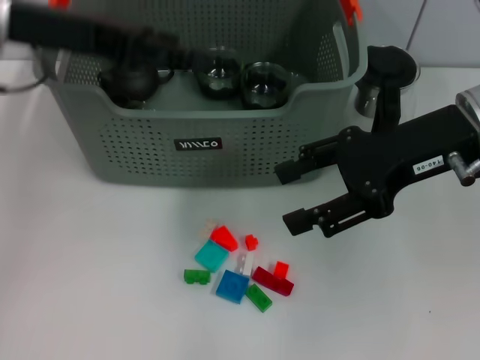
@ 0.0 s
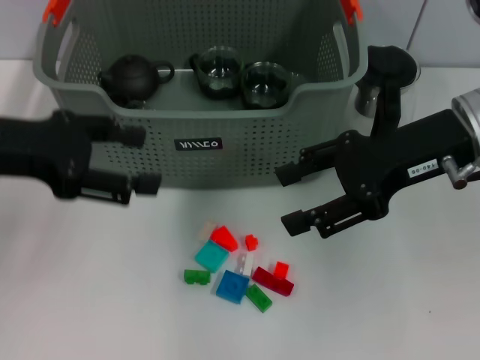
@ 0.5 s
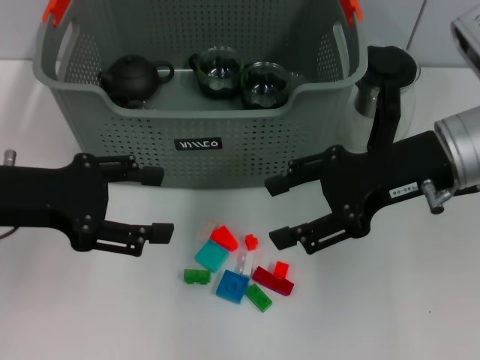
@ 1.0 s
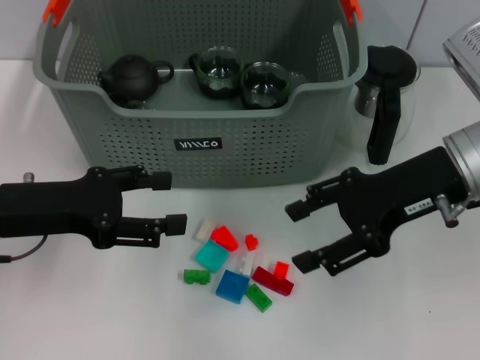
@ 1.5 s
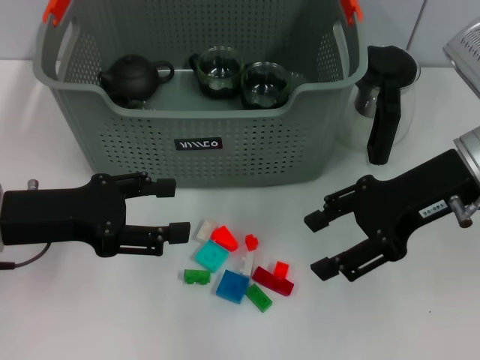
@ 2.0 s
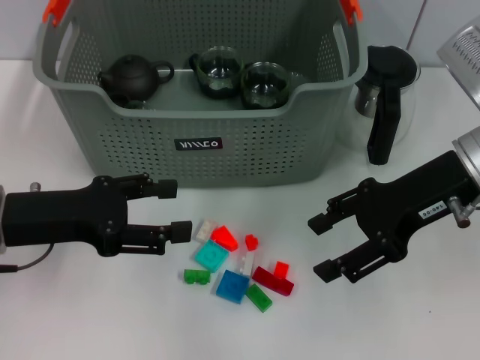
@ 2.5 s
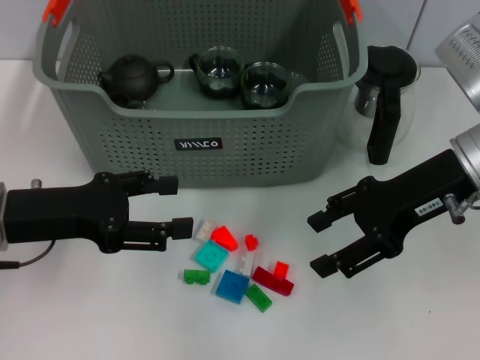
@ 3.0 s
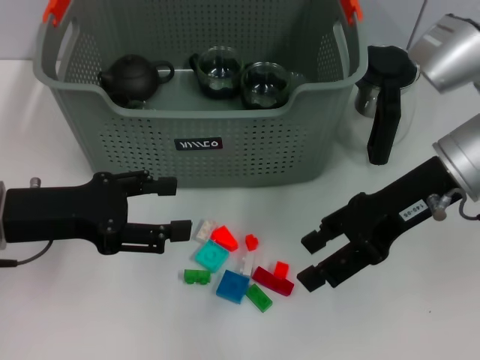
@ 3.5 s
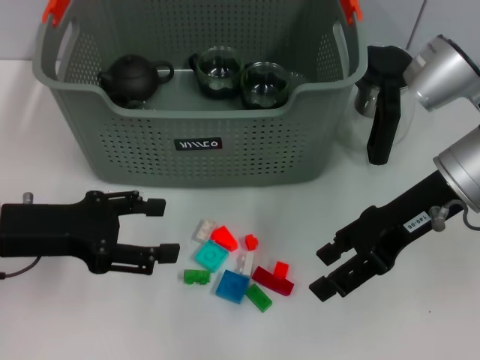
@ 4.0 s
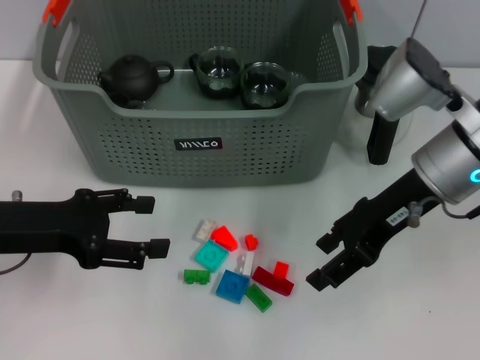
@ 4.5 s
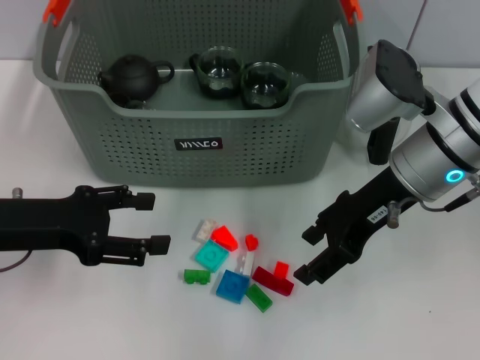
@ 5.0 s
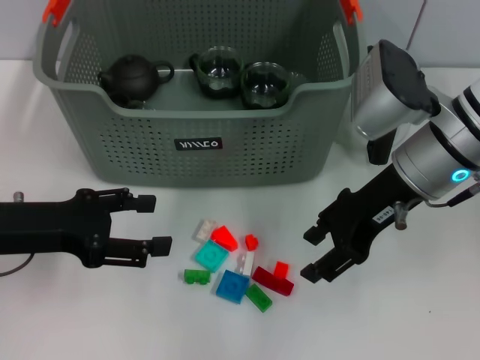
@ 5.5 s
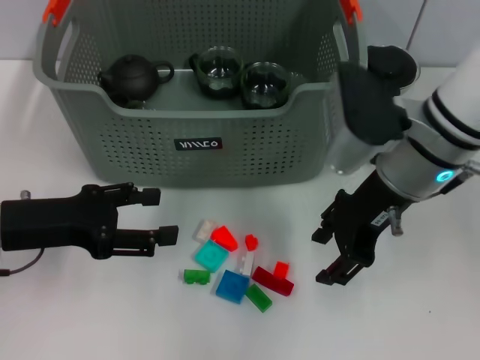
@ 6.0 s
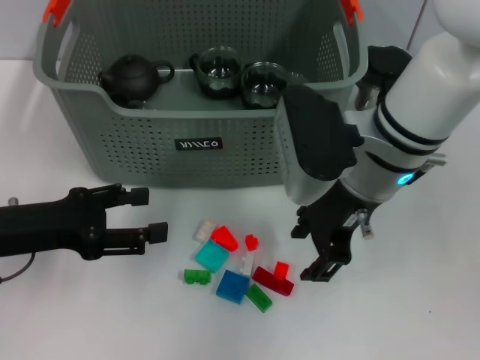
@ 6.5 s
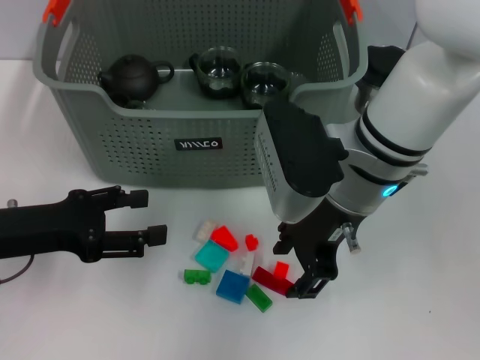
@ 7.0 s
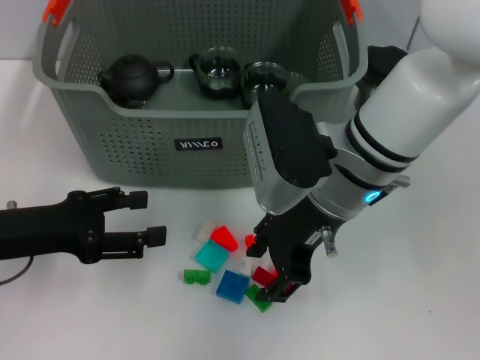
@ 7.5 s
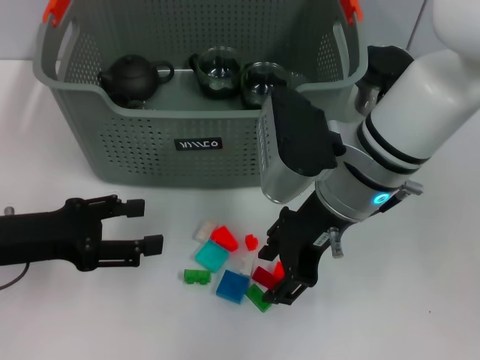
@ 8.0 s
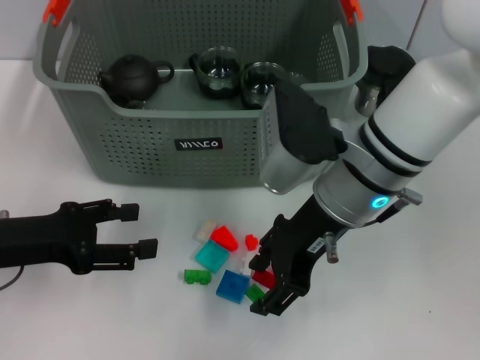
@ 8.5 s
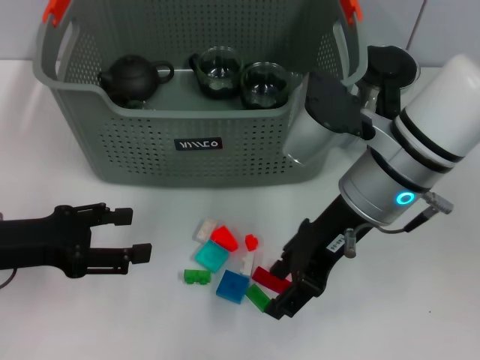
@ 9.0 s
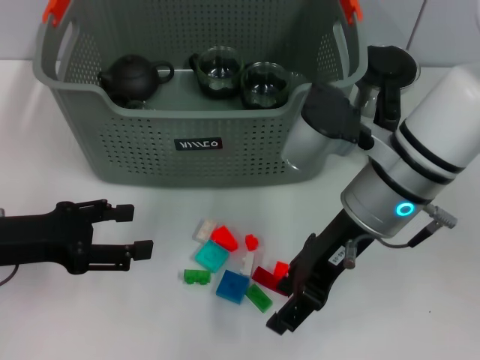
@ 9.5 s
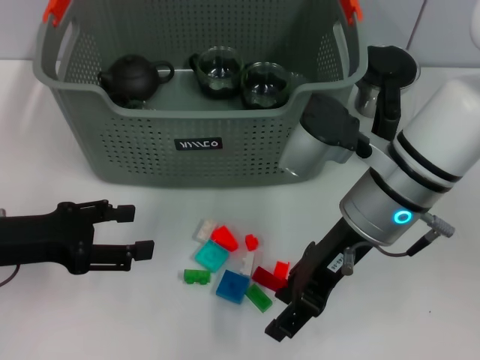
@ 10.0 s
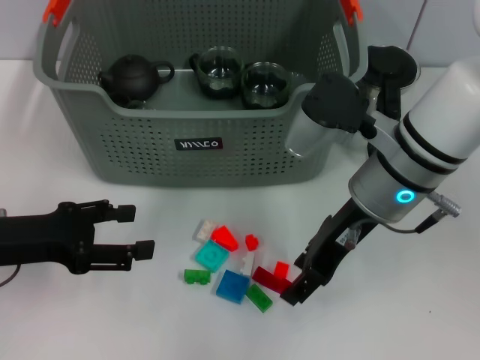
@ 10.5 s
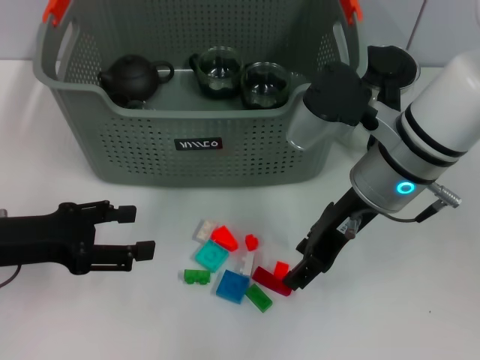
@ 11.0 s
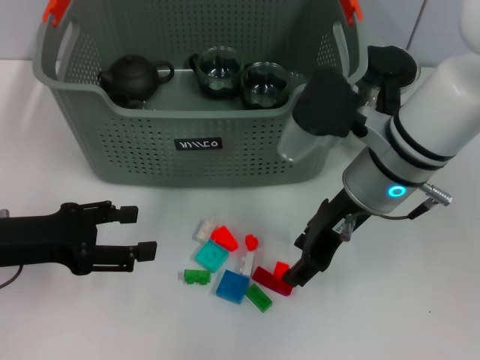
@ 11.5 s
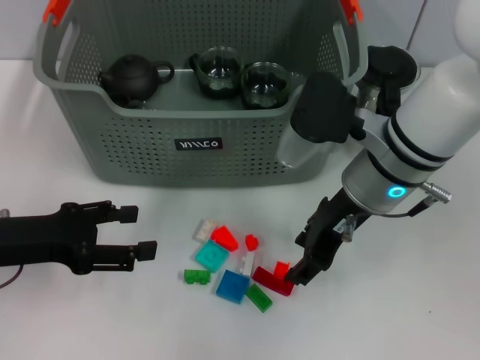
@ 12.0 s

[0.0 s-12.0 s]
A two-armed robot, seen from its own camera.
Task of the whole recording: pick up the teacup on the table and place it into the storage bin, pick up the block on the table and place it into the storage bin.
0.0 to 2.0 s: The left gripper heads downward and backward, covering approximately 15 cm.
4.0 to 6.0 s: The right gripper goes about 5 cm to the left.
6.0 to 8.0 s: The right gripper heads to the left, covering approximately 5 cm.
10.0 to 12.0 s: The grippers move only a little.

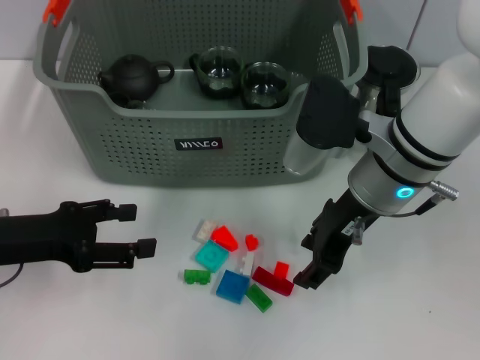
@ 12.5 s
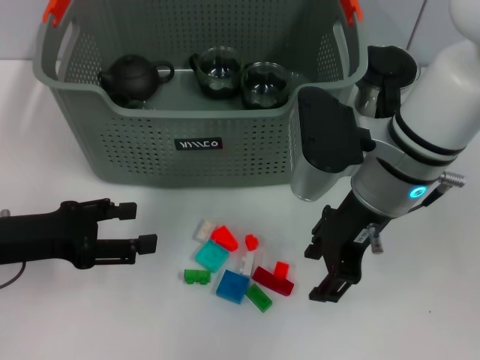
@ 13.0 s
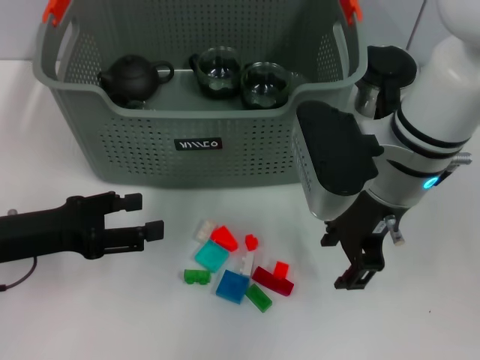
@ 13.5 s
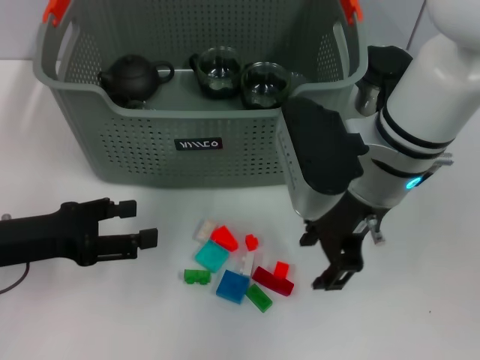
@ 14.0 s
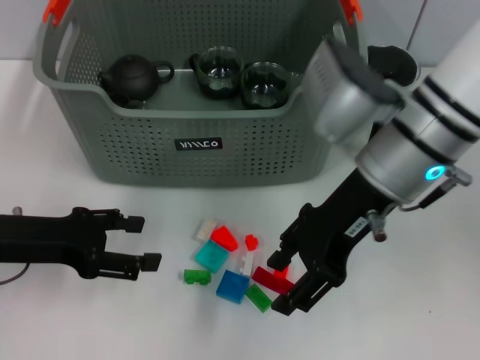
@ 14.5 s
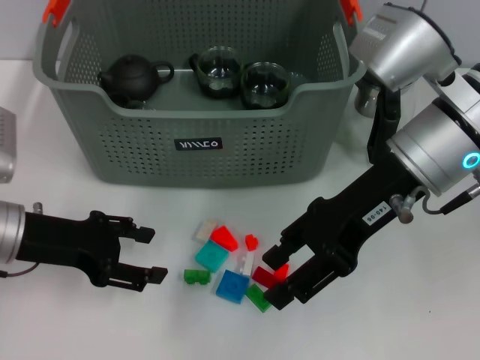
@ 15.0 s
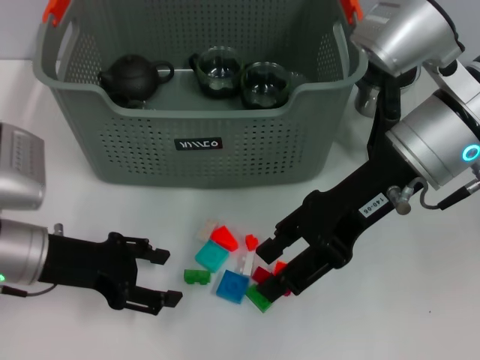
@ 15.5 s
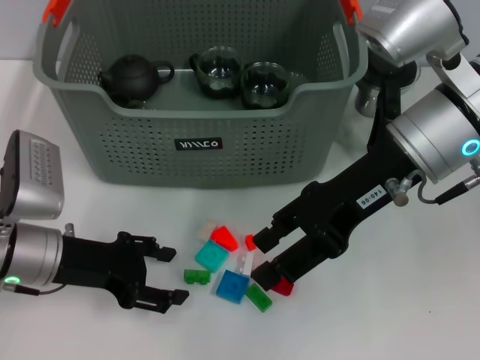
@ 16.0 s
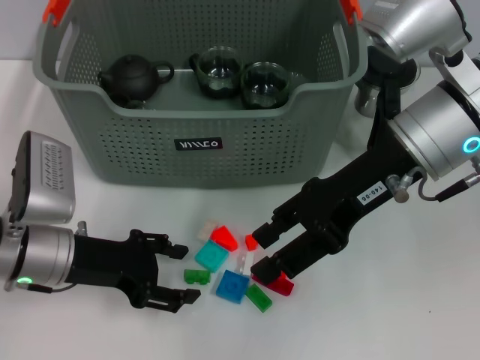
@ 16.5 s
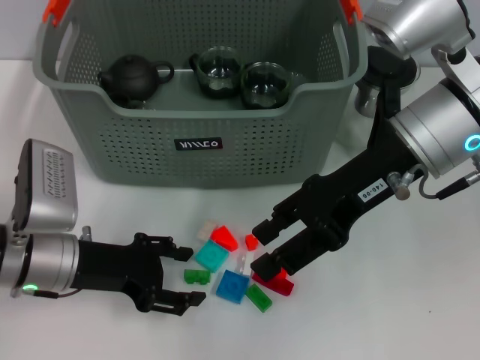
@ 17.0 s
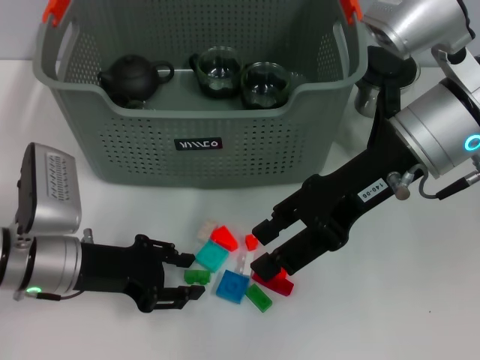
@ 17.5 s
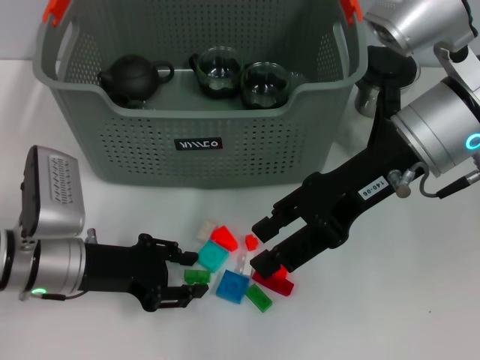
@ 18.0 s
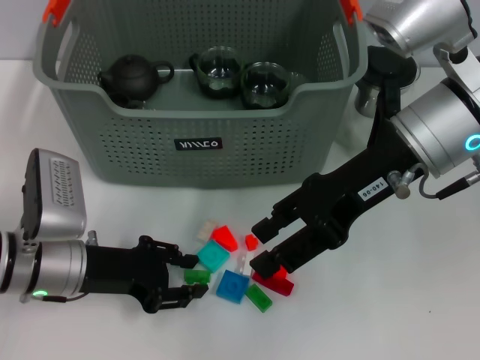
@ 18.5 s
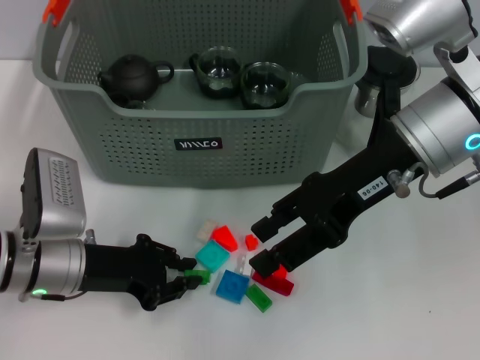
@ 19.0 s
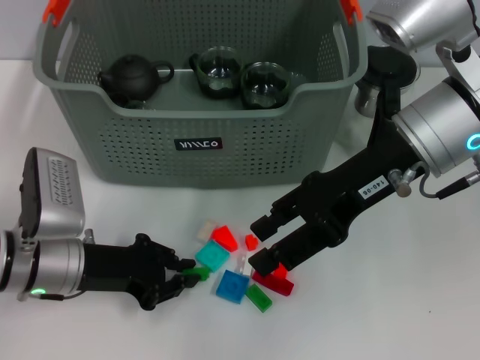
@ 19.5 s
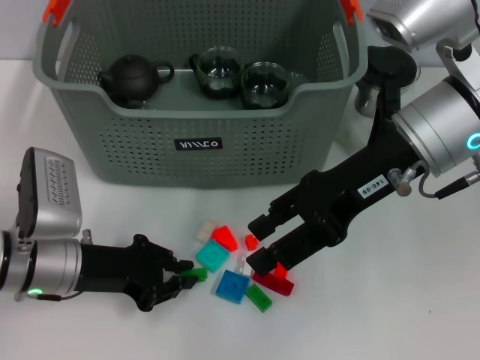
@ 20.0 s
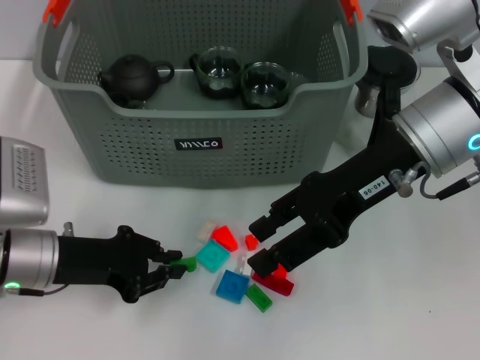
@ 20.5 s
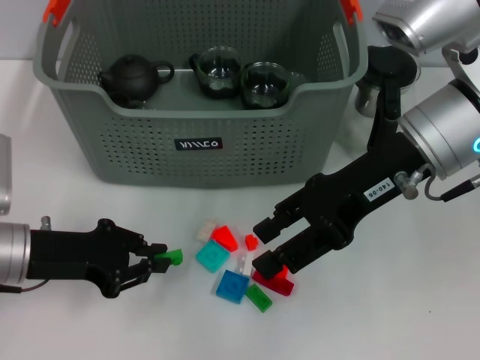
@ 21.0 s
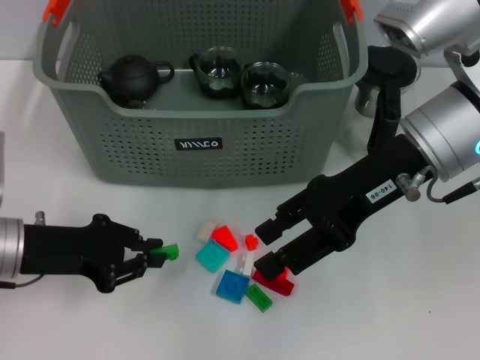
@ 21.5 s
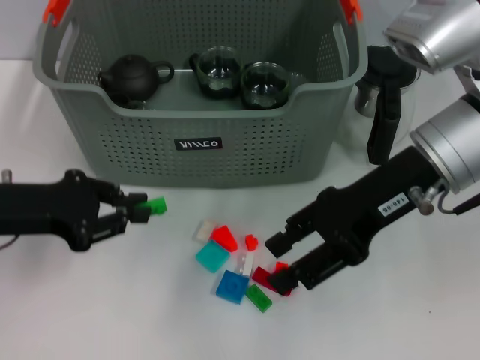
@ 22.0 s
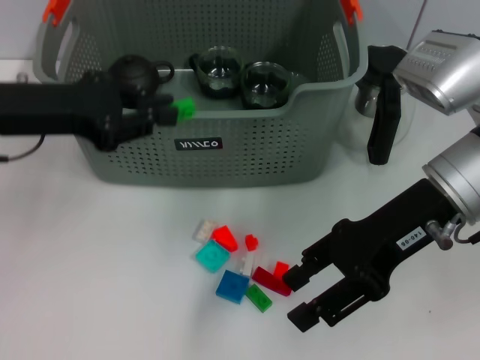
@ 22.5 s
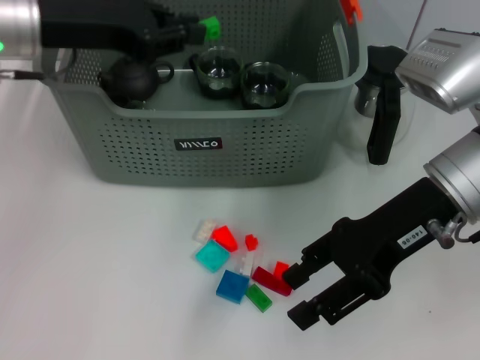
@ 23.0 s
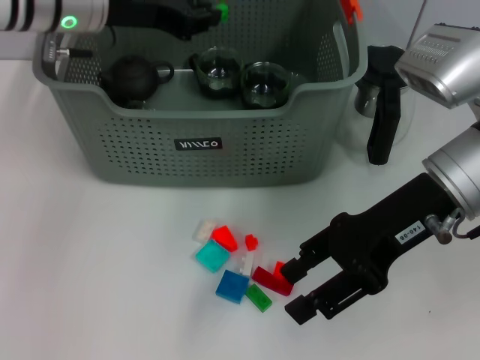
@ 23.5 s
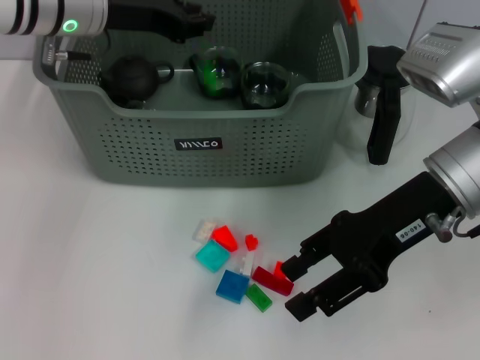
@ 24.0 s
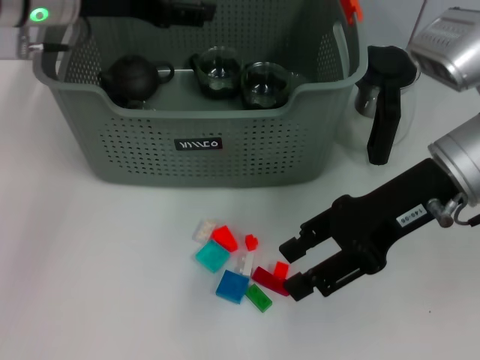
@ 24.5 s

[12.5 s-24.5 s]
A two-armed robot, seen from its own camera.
Task of the whole recording: pick up the teacup on the table and place it into the storage bin, pick up the block on the table and place it into the storage bin.
Step, 12.5 to 19.5 s: Grasp the green block with left gripper.
14.5 to 16.5 s: The left gripper travels to the right by some 5 cm.
16.5 to 18.5 s: There are only small adjustments of the grippers.
18.5 to 20.5 s: The left gripper closes its fingers.
20.5 to 22.5 s: The left gripper travels upward by roughly 15 cm.
22.5 to 24.5 s: The left gripper travels forward and to the right by roughly 10 cm, and opens.

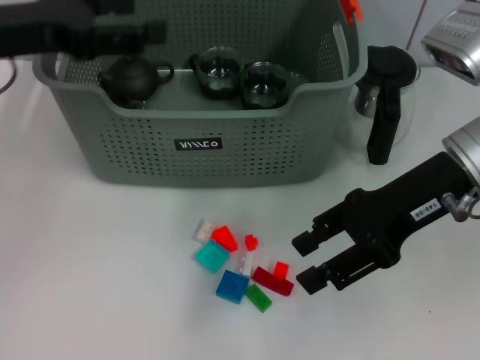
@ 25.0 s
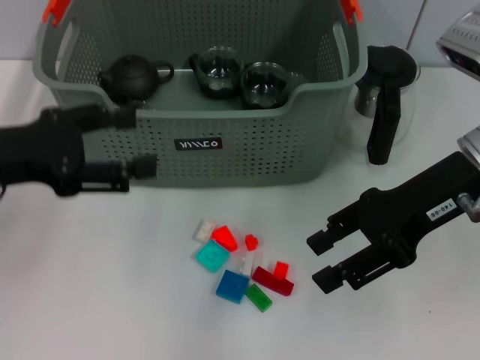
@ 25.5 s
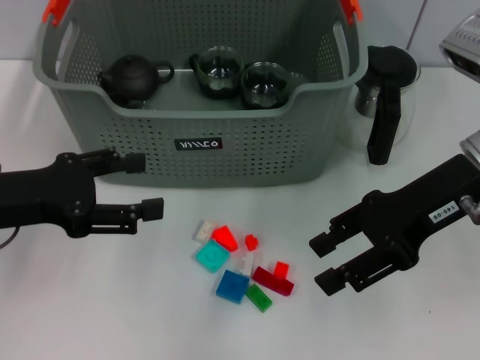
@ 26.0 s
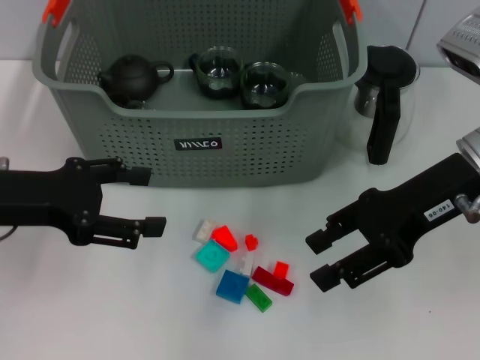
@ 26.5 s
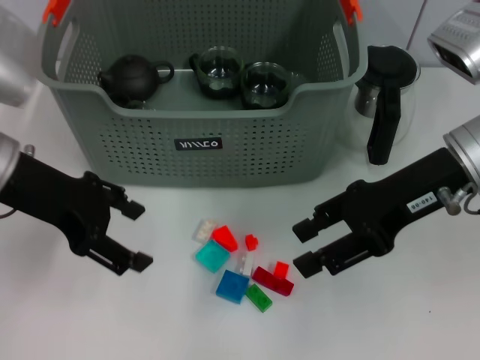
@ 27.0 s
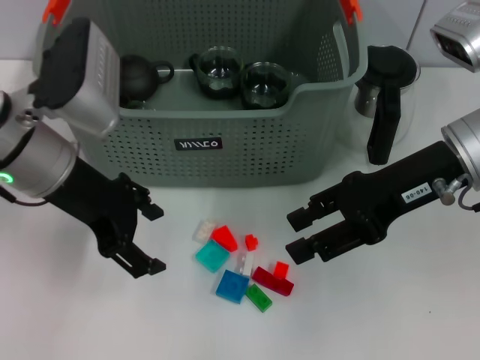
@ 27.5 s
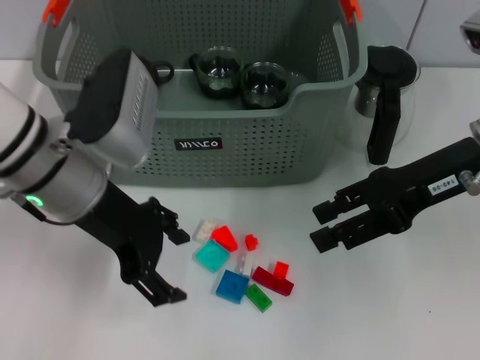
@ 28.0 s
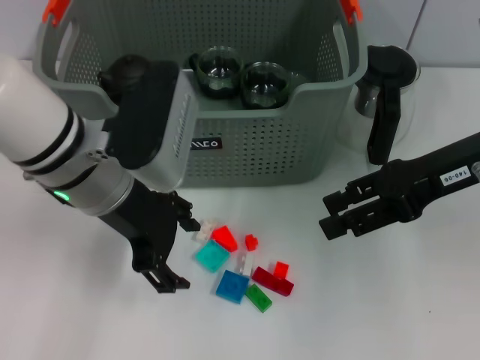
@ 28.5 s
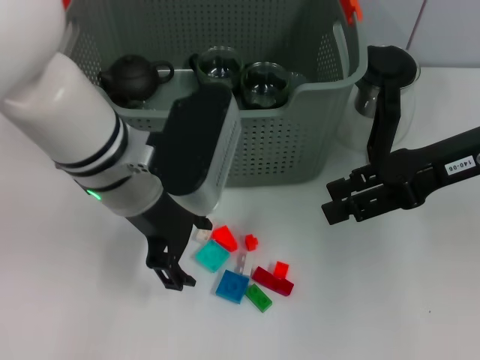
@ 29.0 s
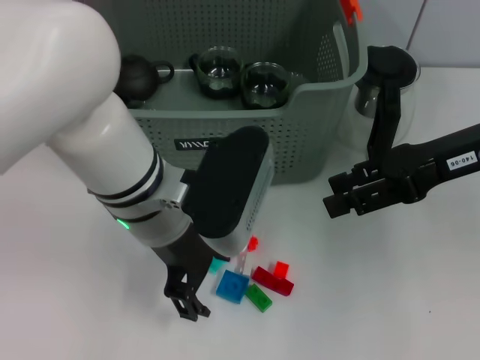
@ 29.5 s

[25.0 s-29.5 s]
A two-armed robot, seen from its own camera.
Task of the whole recording: pick up the teacup on the table and place it into the storage bin, pick up the block on the table and place it into the storage bin.
27.0 to 29.5 s: The left gripper goes roughly 15 cm to the right.
